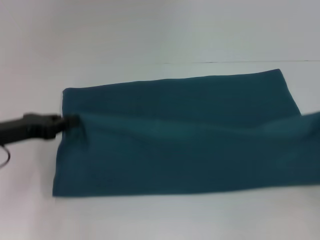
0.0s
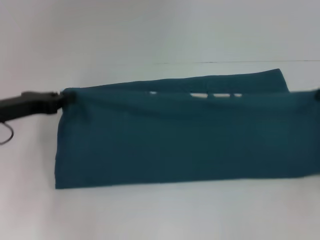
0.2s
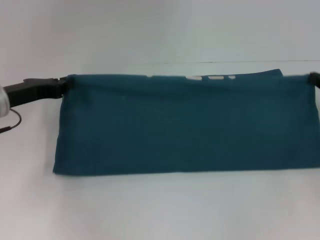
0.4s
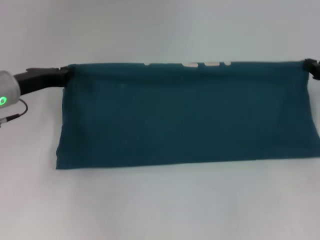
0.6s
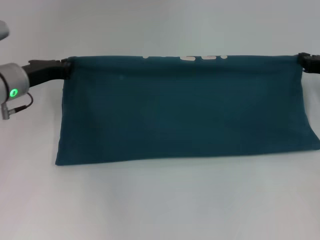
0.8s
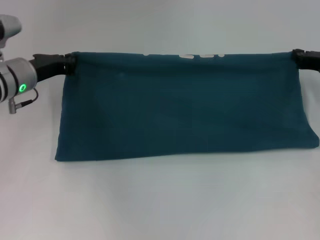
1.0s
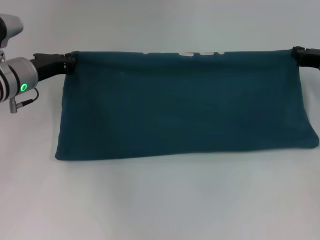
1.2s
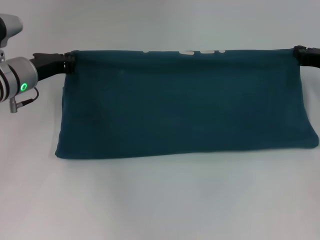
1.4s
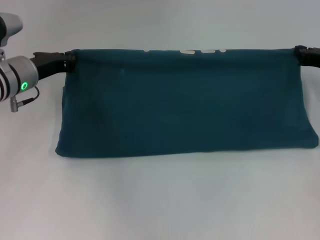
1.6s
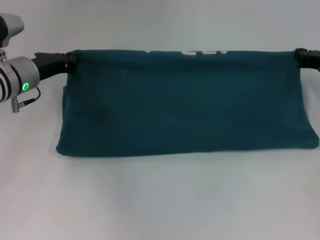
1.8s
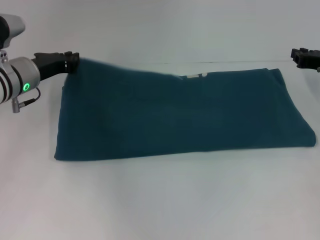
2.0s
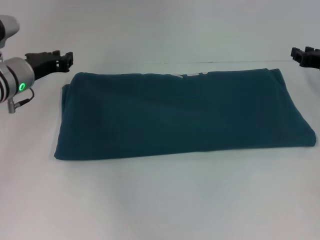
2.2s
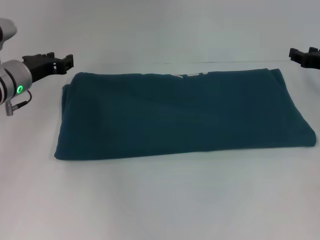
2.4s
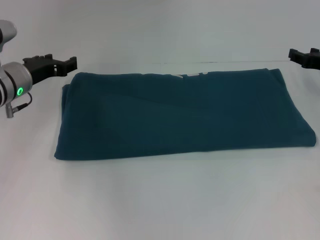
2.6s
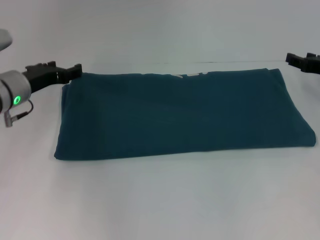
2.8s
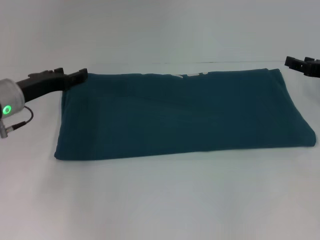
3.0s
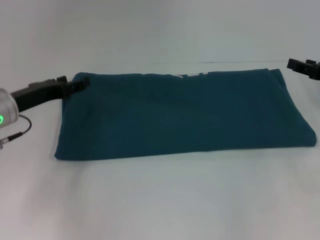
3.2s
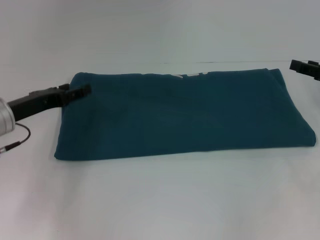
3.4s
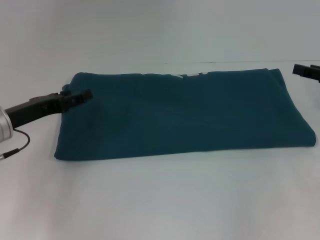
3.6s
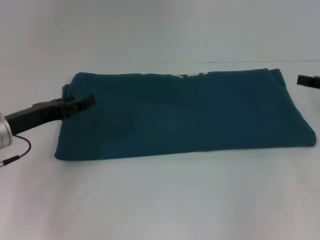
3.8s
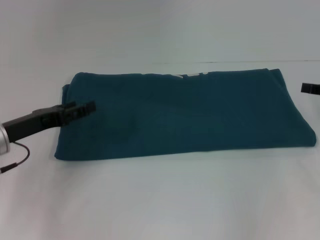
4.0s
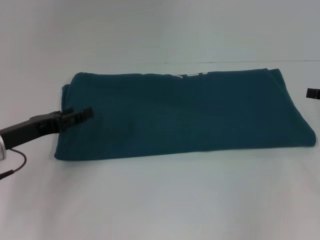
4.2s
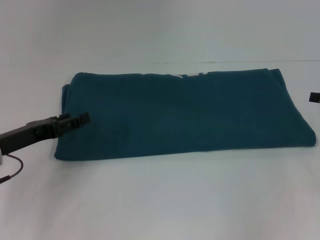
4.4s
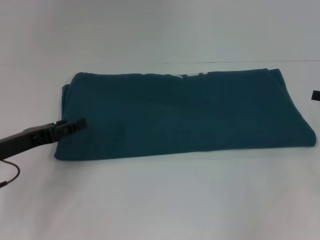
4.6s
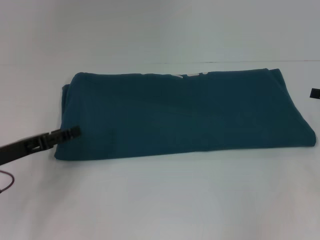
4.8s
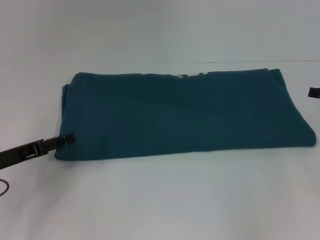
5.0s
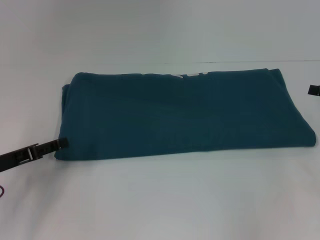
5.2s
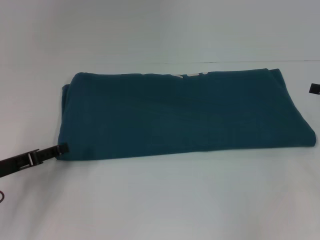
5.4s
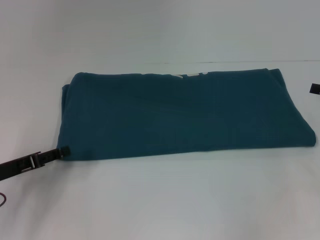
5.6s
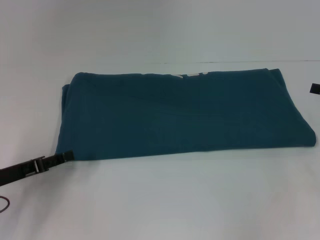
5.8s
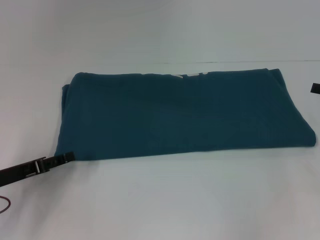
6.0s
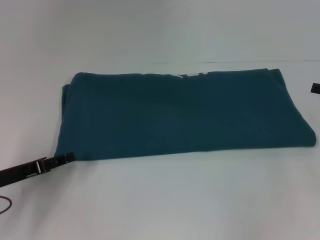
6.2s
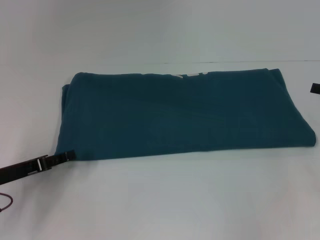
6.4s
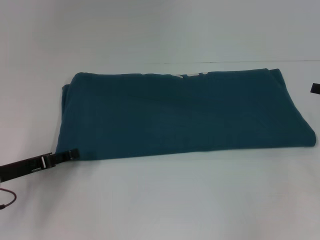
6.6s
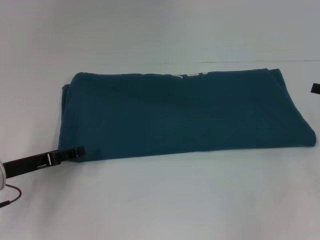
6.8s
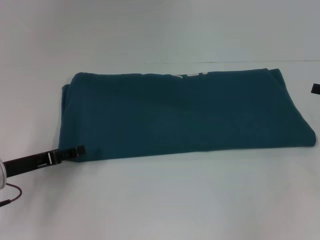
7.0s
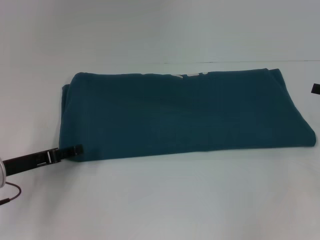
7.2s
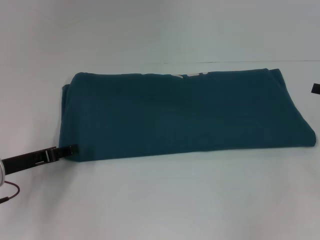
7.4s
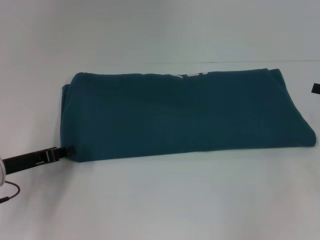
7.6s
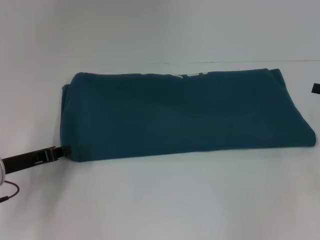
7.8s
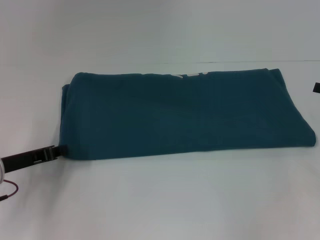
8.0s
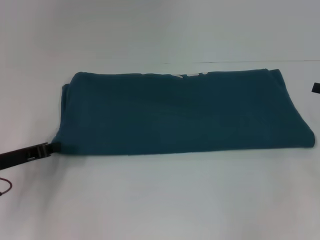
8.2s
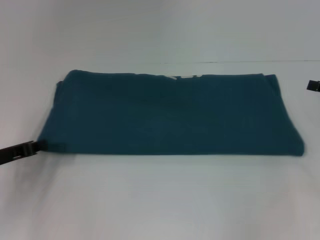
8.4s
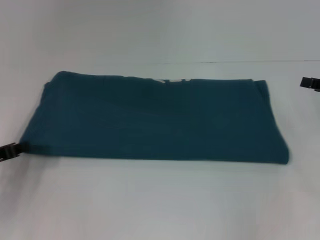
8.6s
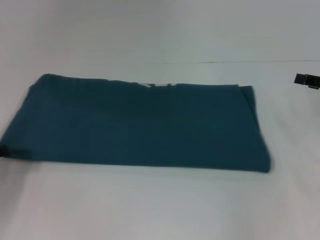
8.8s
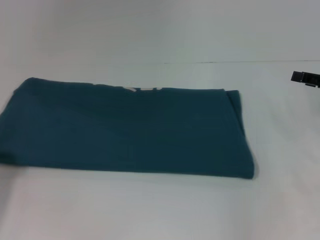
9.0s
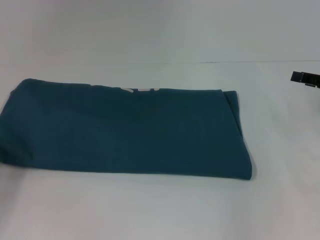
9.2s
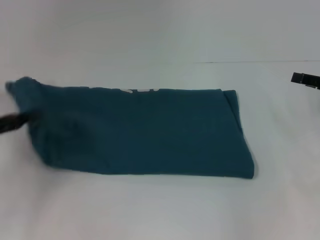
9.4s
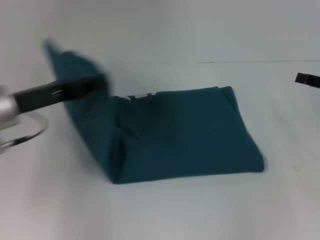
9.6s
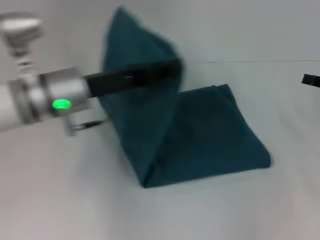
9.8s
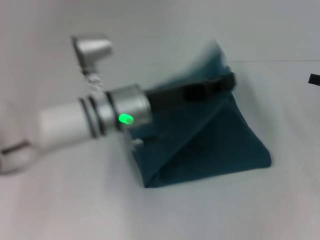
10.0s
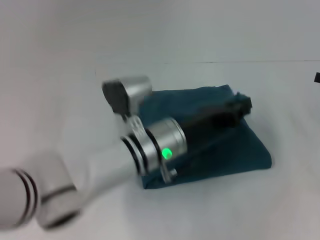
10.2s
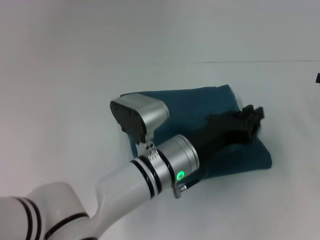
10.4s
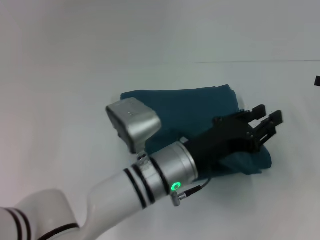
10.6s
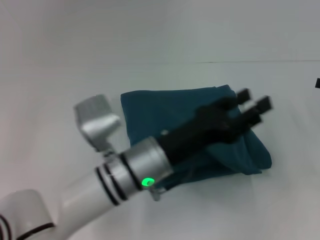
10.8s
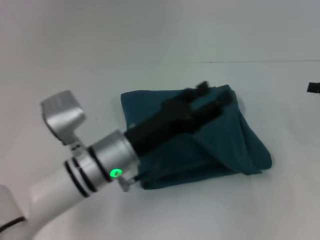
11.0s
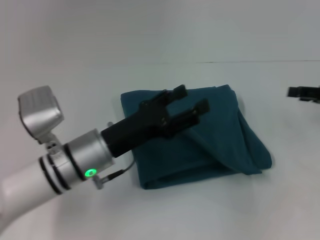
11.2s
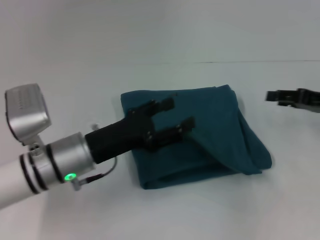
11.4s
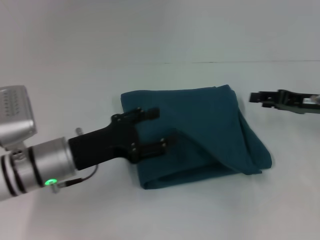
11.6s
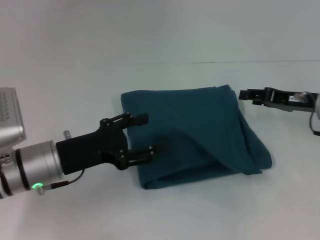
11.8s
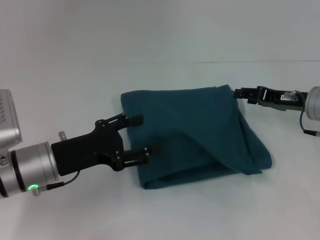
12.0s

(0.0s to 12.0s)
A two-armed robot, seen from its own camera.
Step, 0.0s - 2.6s: Fold the clothes to the right.
Step, 0.0s - 10.8s: Fold the clothes to the left.
0.0s - 1.6s: The right gripper is displaced forward and to the left by roughly 15 cm; the left gripper is displaced forward and to the right by about 15 cm.
1.6s - 3.0s: The left gripper opens. Meanwhile the right gripper opens up.
3.0s - 4.4s: The left gripper is displaced backward by roughly 10 cm. Meanwhile the right gripper travels backward by about 5 cm.
4.4s - 6.0s: The left gripper ends up some 5 cm from where it was.
6.0s - 7.6s: The grippers move only a little.
7.6s - 9.0s: The left gripper is displaced to the left by about 10 cm, and closes its fingers.
9.0s - 10.4s: The left gripper moves to the right, approximately 35 cm.
10.4s - 12.0s: The left gripper shifts about 20 cm to the left, and opens up, while the right gripper moves to the left, roughly 10 cm.

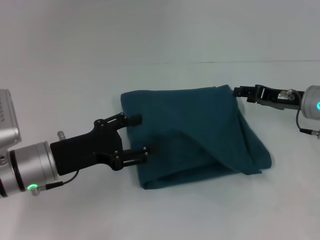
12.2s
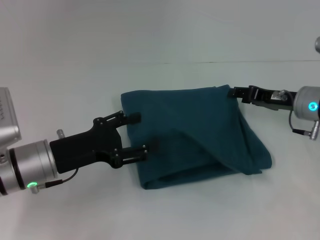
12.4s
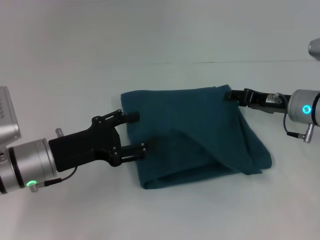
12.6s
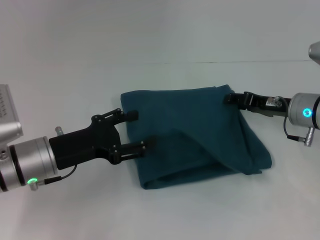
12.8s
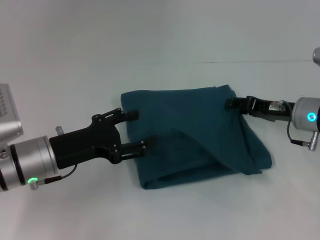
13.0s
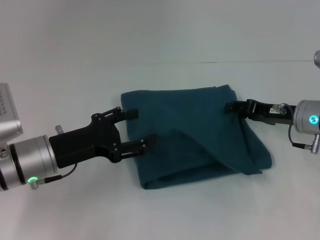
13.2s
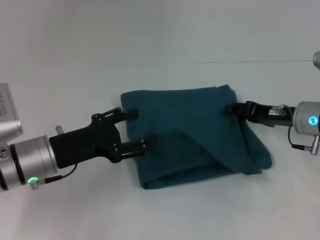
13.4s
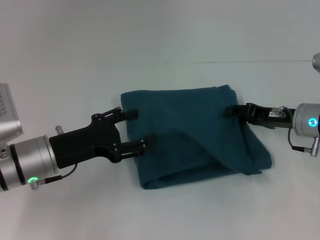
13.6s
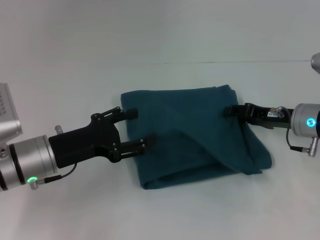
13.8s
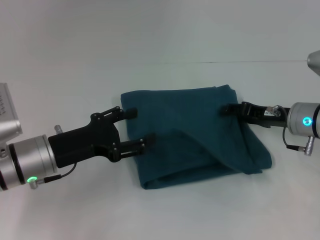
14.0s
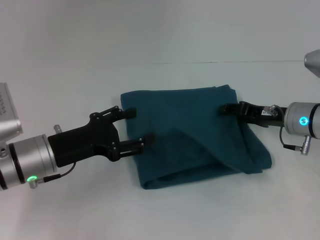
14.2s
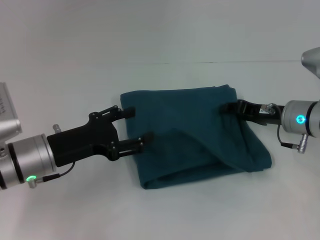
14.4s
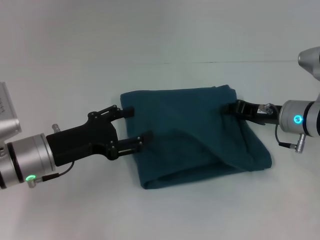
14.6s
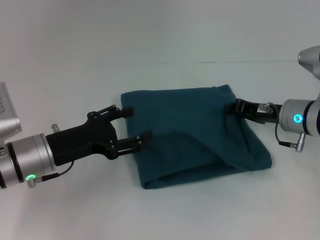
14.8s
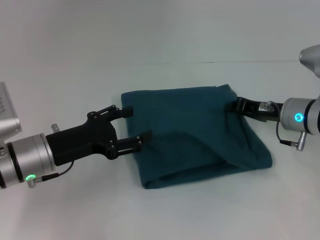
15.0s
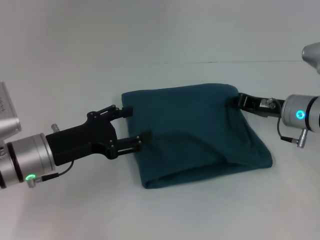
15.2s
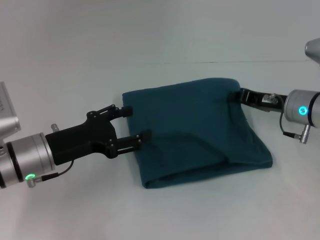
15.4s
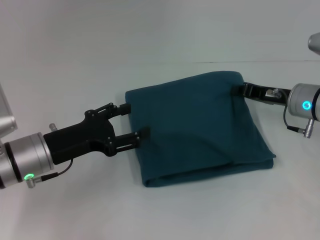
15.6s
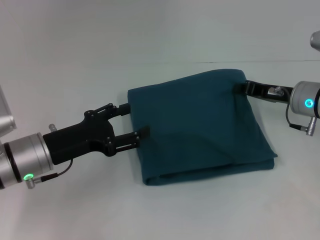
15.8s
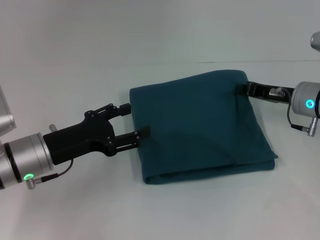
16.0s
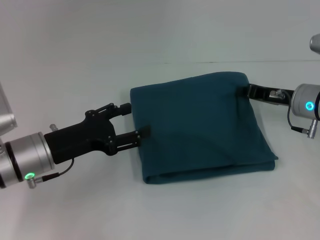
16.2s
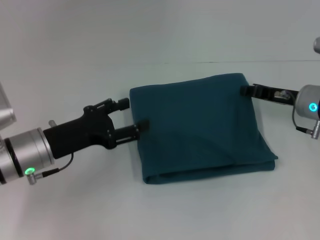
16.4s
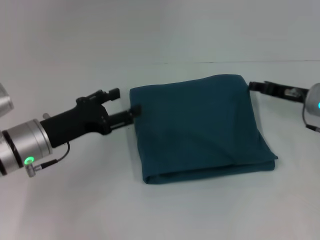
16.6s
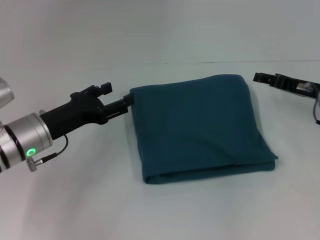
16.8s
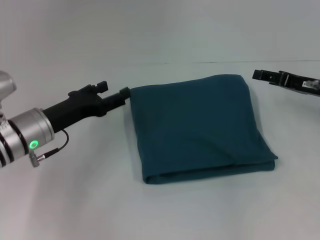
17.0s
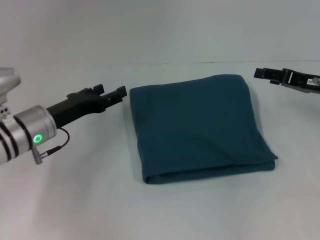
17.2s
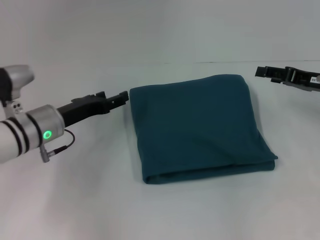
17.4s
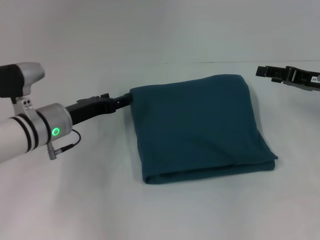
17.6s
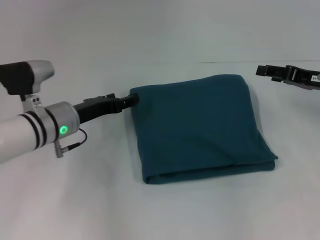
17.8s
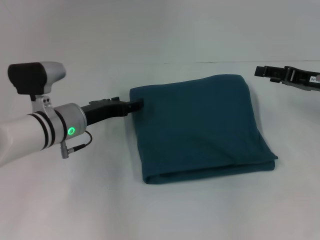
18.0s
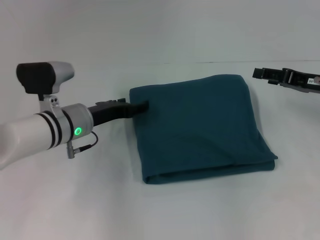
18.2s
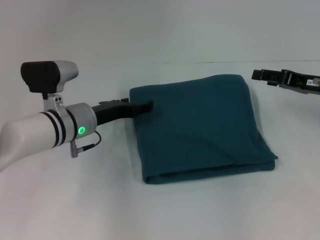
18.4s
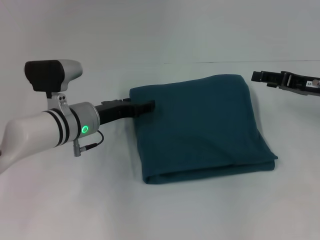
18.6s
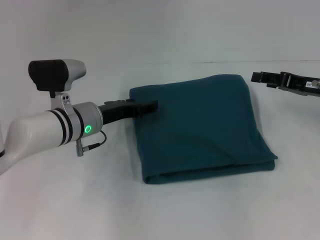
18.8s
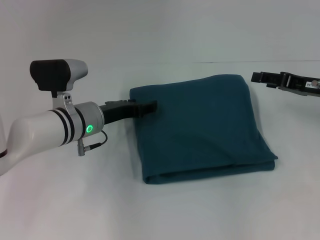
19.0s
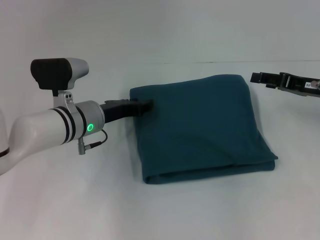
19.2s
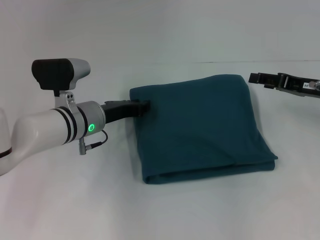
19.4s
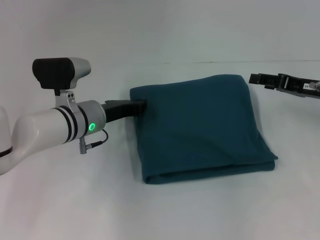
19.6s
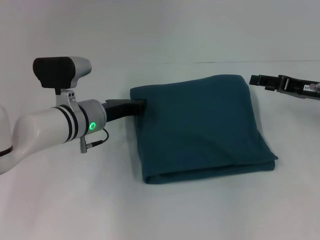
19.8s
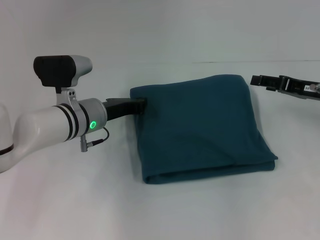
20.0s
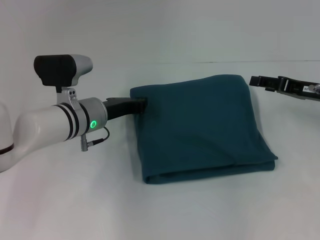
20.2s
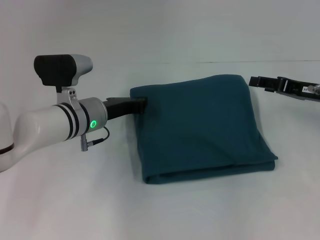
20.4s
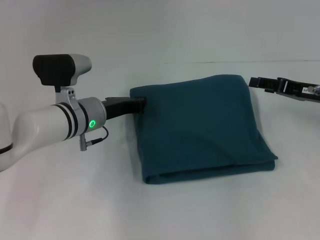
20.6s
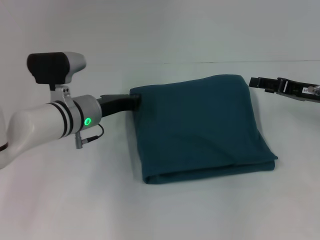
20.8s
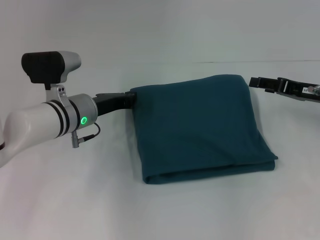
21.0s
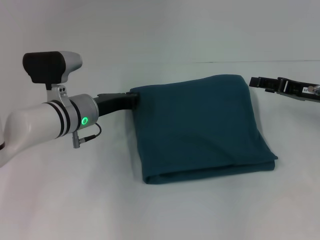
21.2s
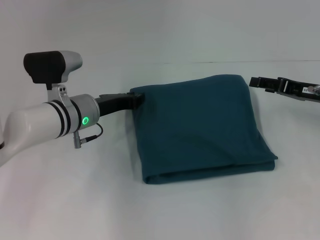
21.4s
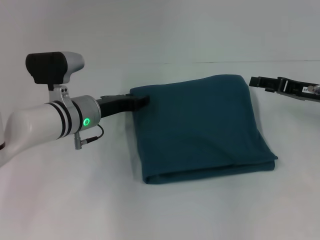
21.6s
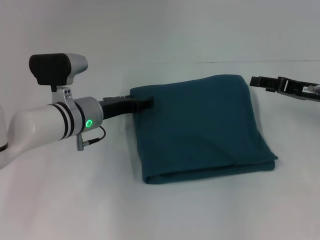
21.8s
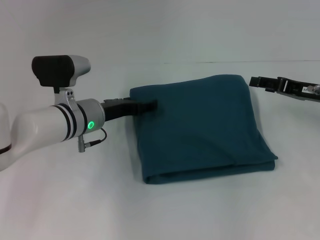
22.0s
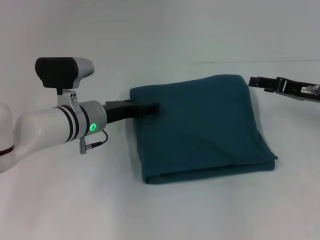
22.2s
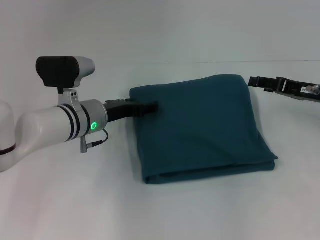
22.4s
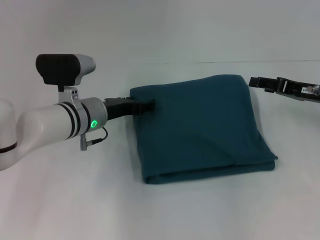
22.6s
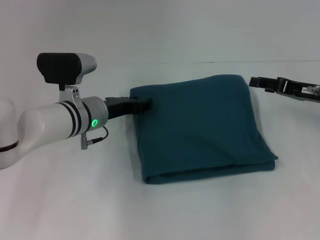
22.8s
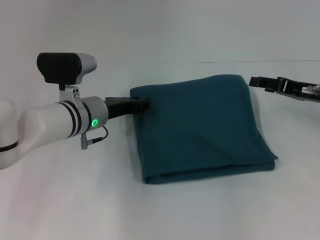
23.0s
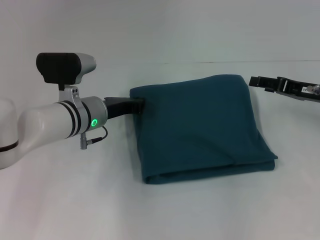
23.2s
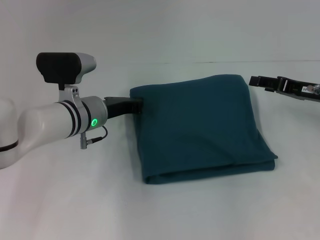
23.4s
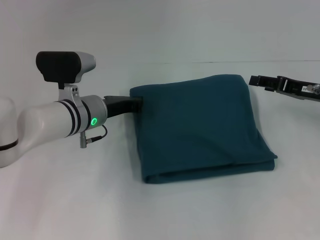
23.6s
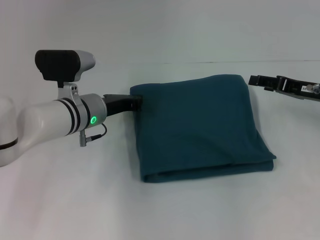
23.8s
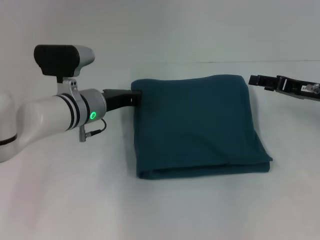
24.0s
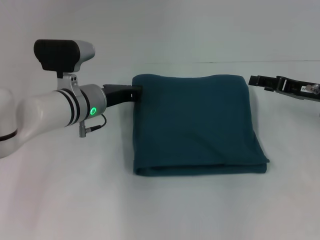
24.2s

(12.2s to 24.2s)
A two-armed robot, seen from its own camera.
12.2s - 13.8s: The grippers make only small movements.
13.8s - 15.2s: The right gripper closes.
15.2s - 16.6s: There are only small adjustments of the grippers.
16.6s - 18.2s: The left gripper is displaced forward and to the right by roughly 10 cm, while the right gripper opens its fingers.
18.2s - 19.8s: The left gripper closes.
19.8s - 21.2s: The grippers stay close to where they were, moving slightly.
21.2s - 22.6s: The left gripper opens.
22.6s - 24.2s: The left gripper closes up.
